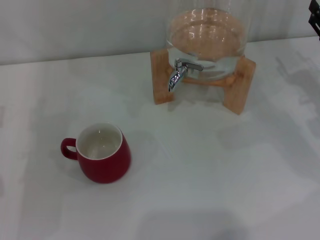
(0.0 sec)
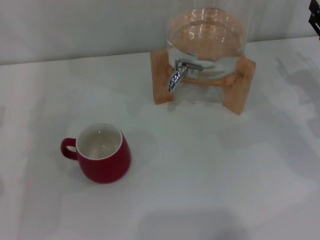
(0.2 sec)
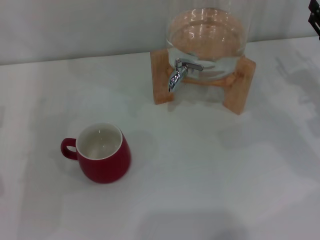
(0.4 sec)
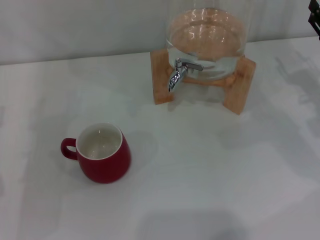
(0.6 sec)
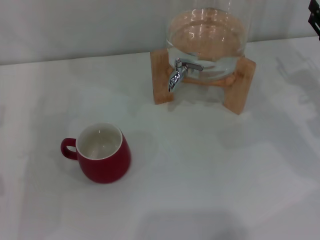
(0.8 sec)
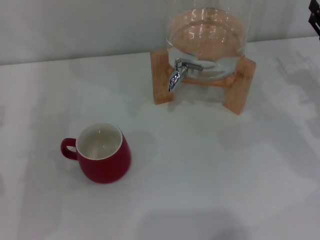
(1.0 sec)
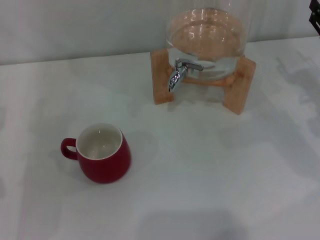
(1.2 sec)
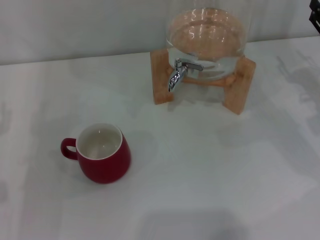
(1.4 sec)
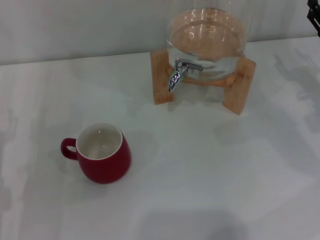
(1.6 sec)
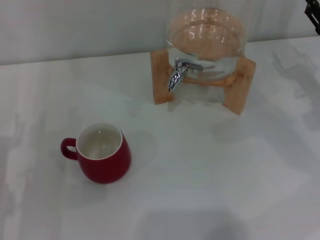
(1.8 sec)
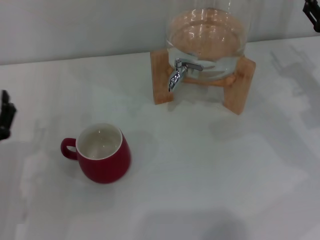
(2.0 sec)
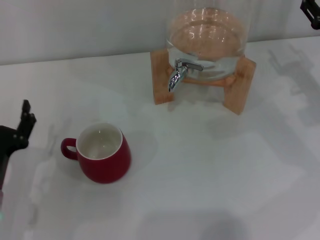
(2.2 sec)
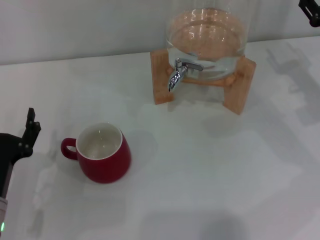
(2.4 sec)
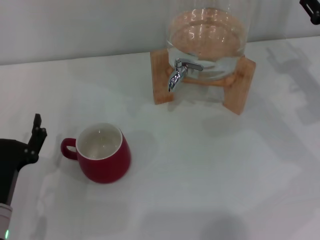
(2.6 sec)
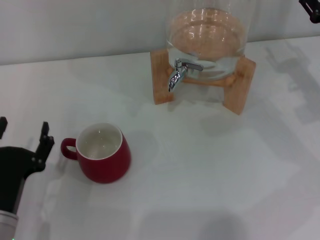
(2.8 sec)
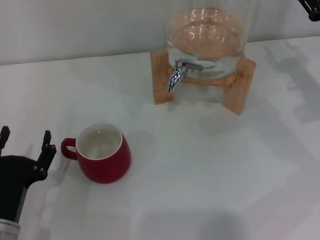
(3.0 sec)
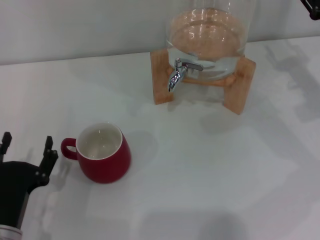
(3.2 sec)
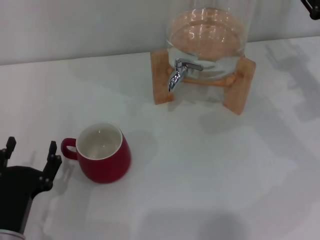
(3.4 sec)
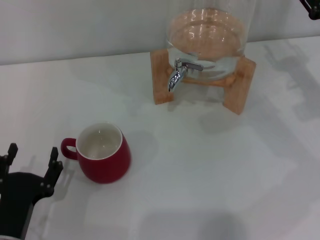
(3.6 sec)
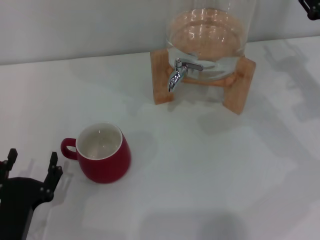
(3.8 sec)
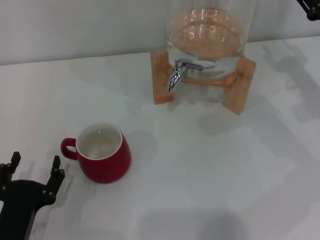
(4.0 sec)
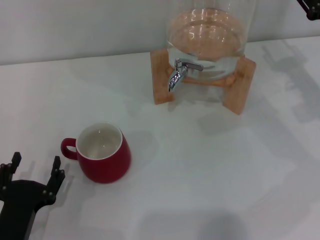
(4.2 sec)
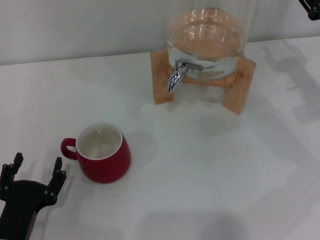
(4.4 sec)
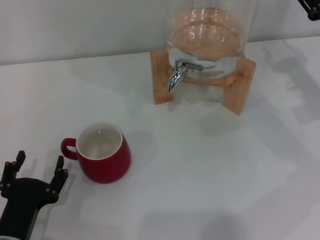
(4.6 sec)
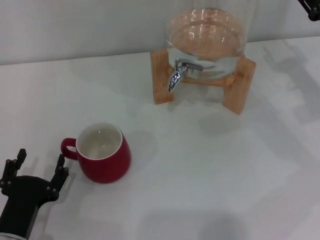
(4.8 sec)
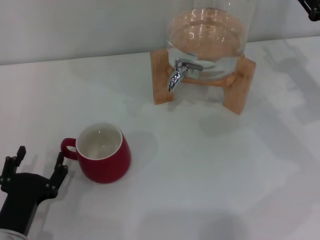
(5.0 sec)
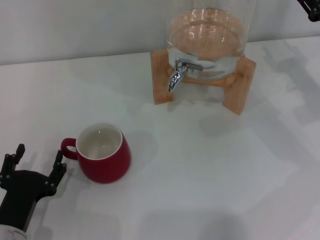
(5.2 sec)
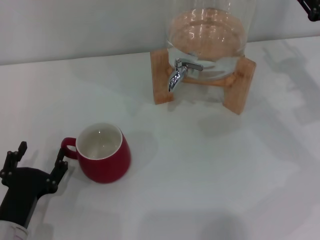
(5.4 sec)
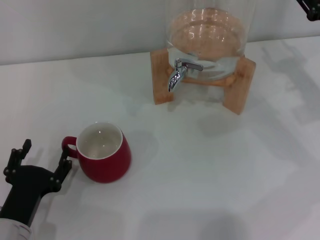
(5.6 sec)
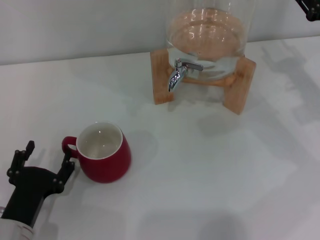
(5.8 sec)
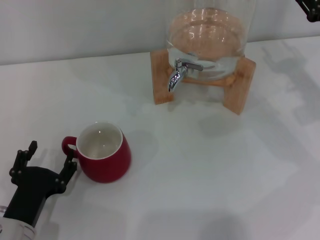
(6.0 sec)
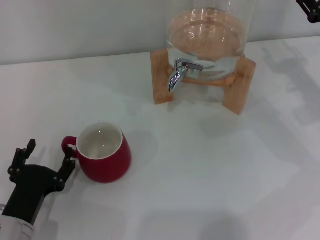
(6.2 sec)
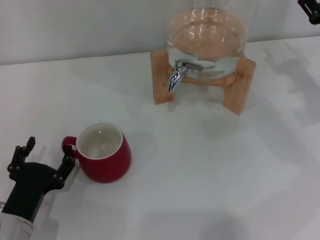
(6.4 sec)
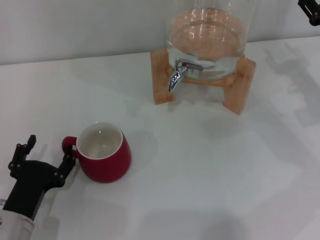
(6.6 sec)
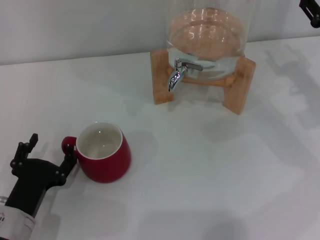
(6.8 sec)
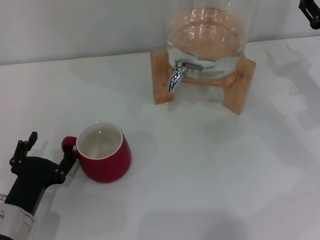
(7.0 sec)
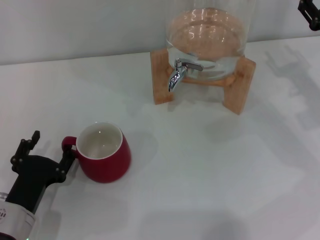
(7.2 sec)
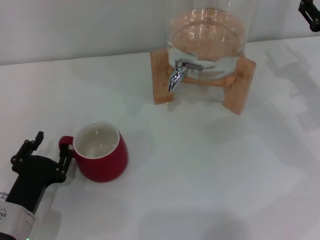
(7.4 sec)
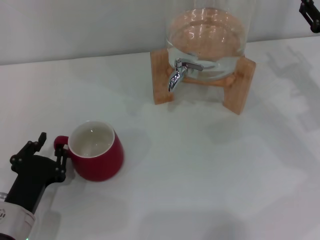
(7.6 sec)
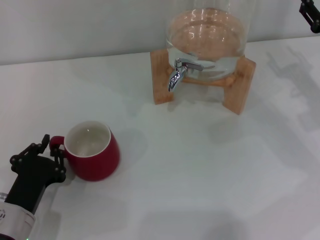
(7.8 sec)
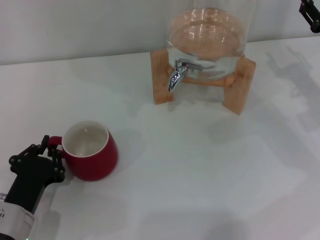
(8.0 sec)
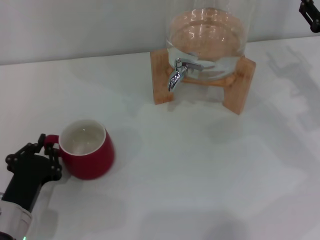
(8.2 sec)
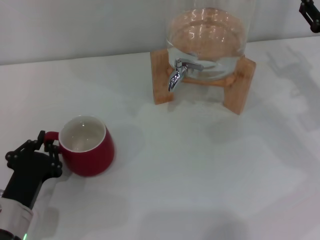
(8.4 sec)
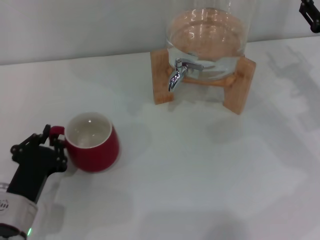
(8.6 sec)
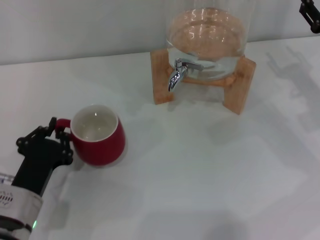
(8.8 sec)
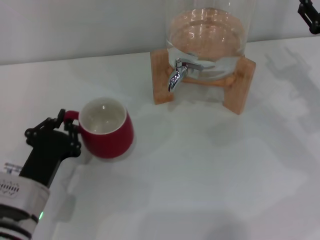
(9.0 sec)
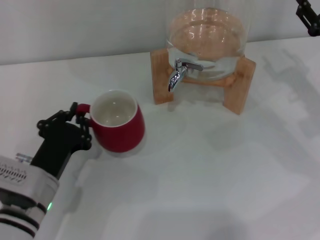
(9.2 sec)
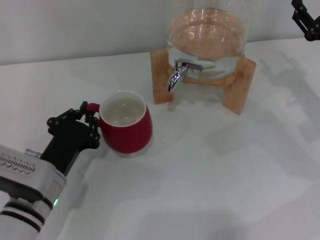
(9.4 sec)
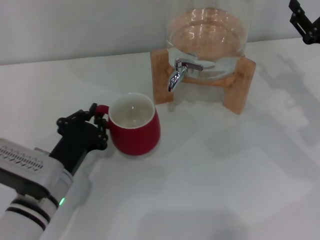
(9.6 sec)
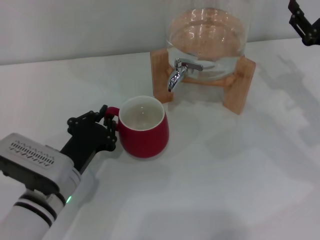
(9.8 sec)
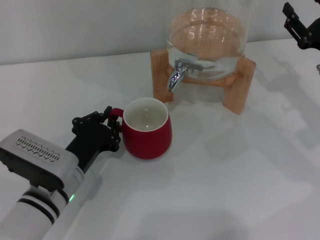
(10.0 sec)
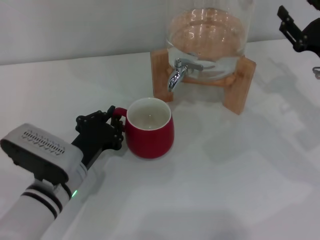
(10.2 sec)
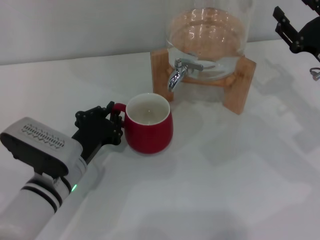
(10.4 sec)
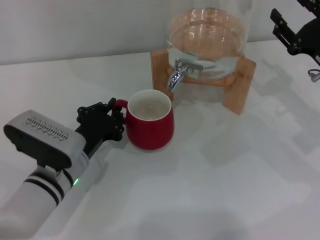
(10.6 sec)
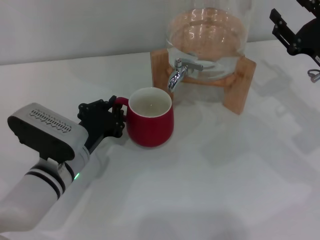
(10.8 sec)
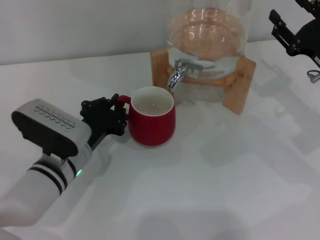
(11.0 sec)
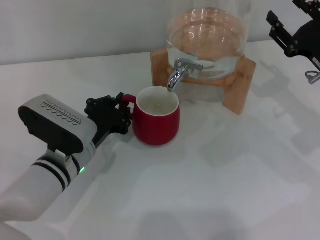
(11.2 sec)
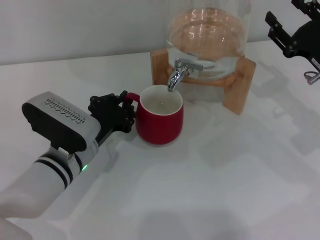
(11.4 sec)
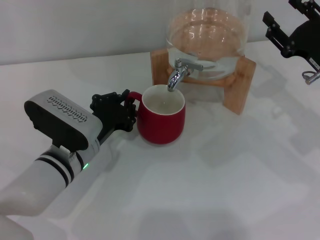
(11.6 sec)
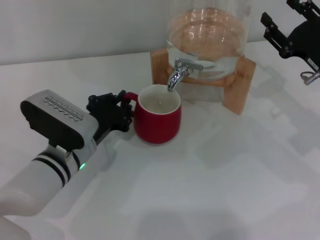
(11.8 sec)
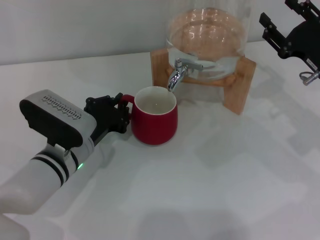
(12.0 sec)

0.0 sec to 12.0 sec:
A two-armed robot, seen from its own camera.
Task of the whole recording: the left gripper pick up the red cup and place it horizontally under the faucet, the right gripper turn on the faucet to fill the cup, and then turn off the faucet.
1.6 sec to 3.0 sec: The left gripper is displaced backward and to the right by some 10 cm.
3.0 sec to 6.0 sec: The grippers move only a little.
6.0 sec to 7.6 sec: The left gripper closes its fingers.
7.6 sec to 9.0 sec: The left gripper closes its fingers.
9.0 sec to 10.4 sec: The left gripper shifts by approximately 5 cm.
10.4 sec to 12.0 sec: There are only small adjustments of the grippers.

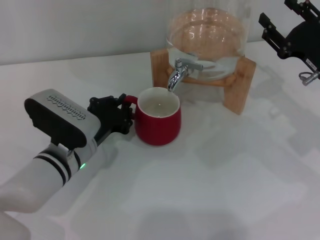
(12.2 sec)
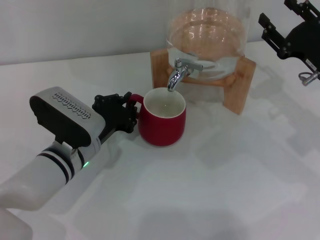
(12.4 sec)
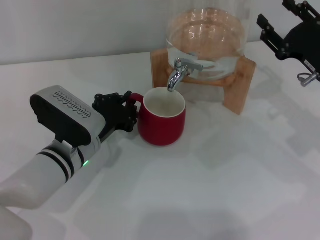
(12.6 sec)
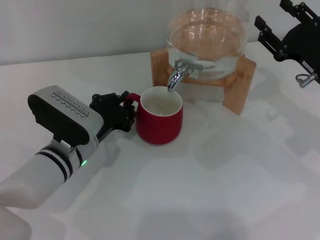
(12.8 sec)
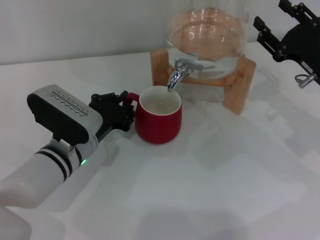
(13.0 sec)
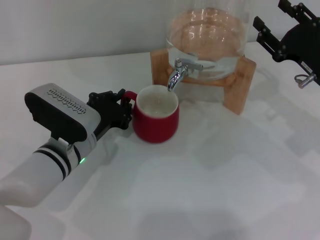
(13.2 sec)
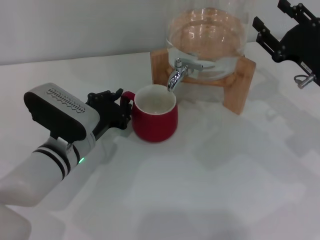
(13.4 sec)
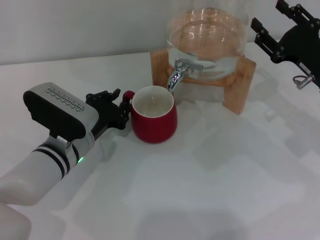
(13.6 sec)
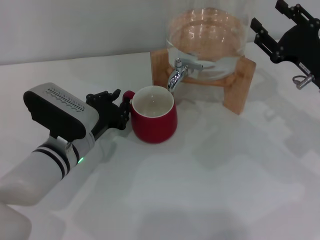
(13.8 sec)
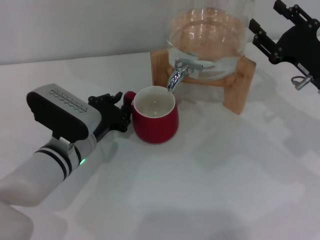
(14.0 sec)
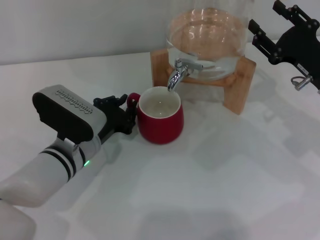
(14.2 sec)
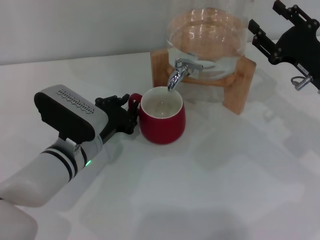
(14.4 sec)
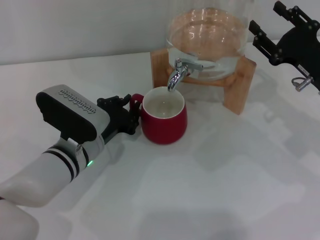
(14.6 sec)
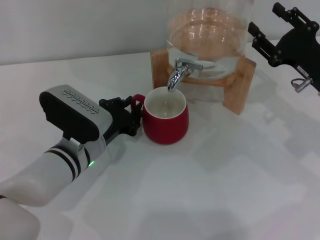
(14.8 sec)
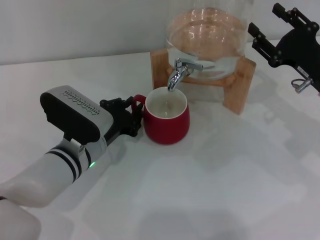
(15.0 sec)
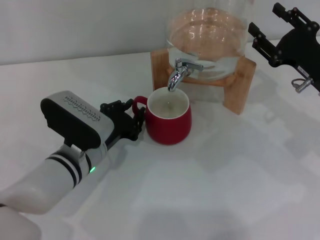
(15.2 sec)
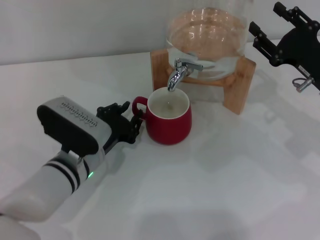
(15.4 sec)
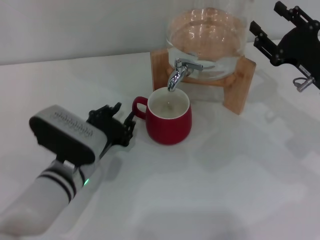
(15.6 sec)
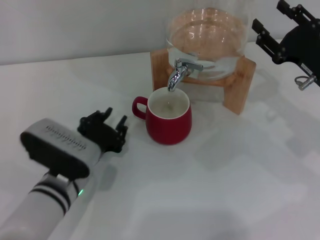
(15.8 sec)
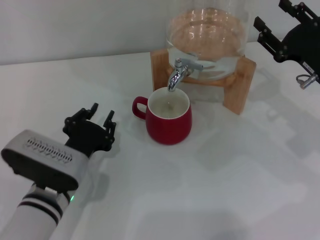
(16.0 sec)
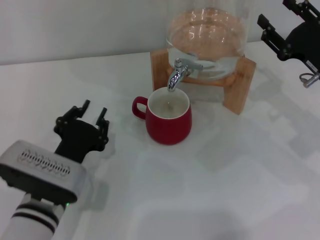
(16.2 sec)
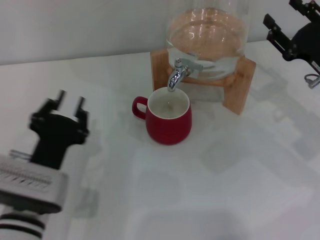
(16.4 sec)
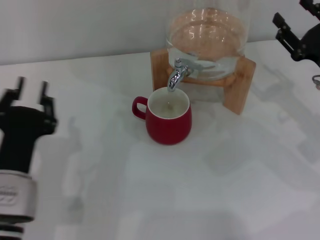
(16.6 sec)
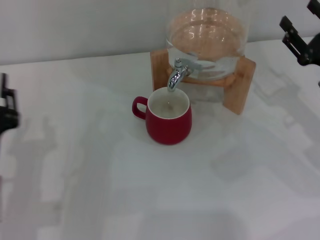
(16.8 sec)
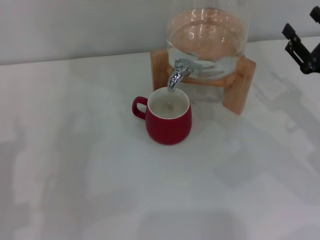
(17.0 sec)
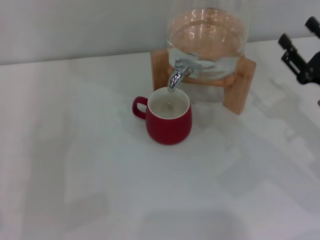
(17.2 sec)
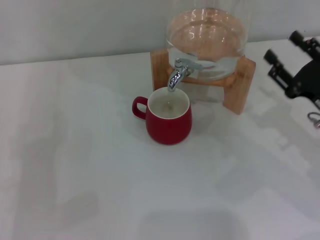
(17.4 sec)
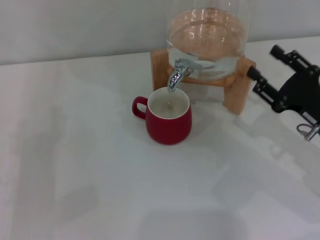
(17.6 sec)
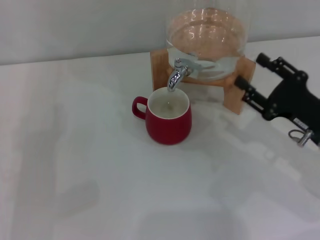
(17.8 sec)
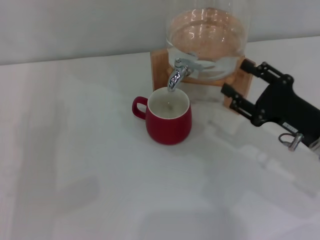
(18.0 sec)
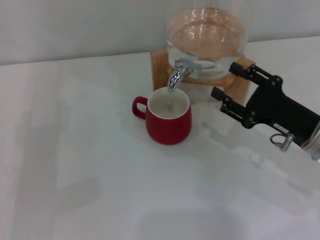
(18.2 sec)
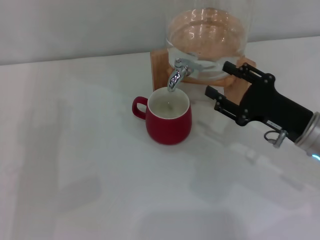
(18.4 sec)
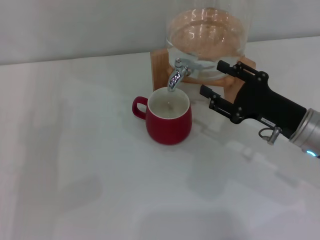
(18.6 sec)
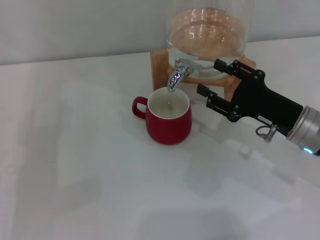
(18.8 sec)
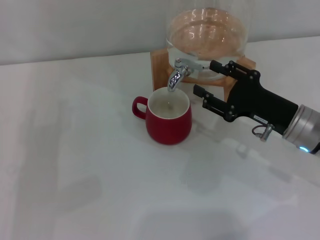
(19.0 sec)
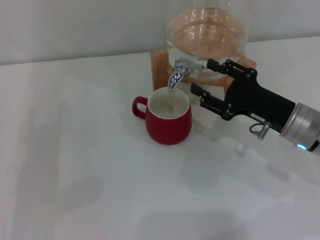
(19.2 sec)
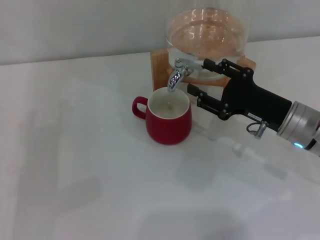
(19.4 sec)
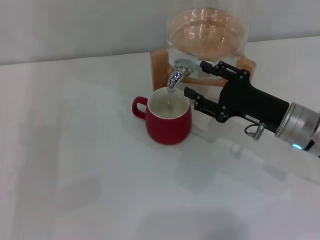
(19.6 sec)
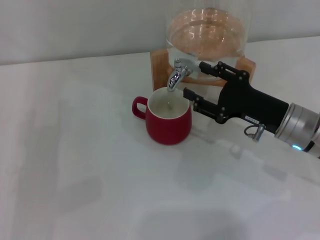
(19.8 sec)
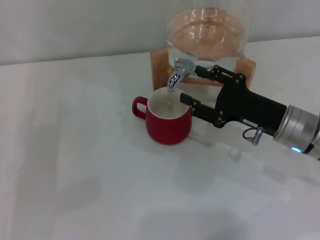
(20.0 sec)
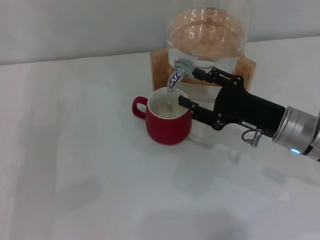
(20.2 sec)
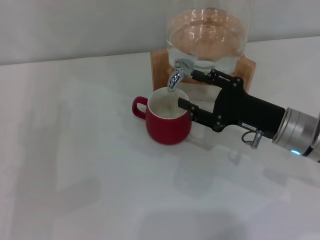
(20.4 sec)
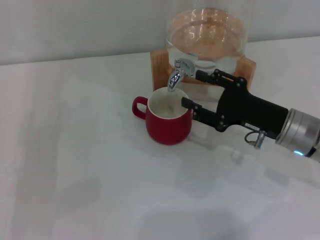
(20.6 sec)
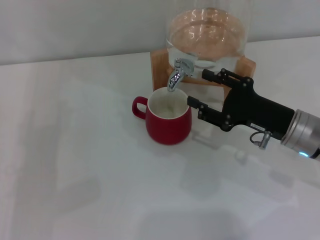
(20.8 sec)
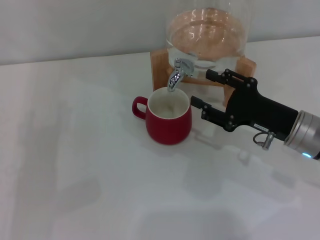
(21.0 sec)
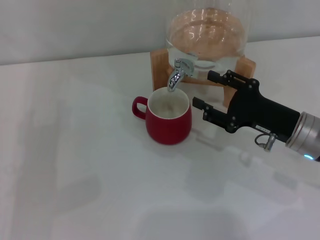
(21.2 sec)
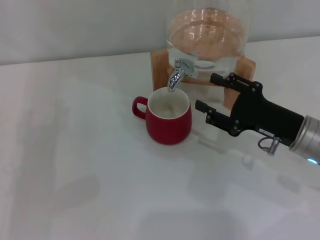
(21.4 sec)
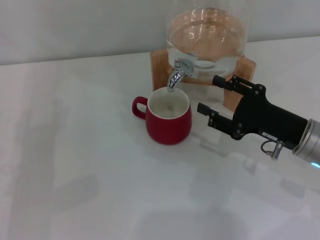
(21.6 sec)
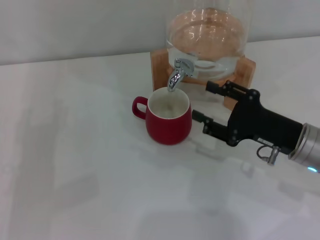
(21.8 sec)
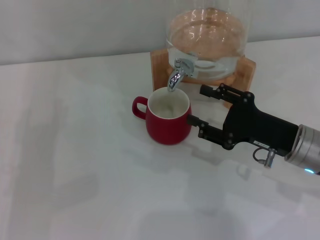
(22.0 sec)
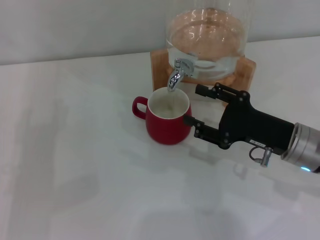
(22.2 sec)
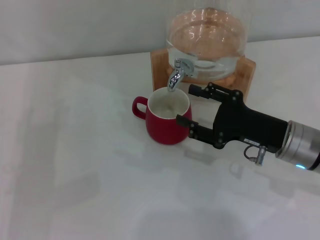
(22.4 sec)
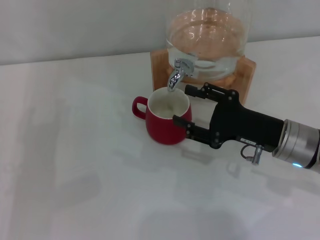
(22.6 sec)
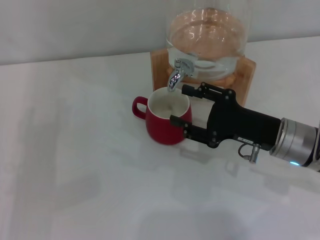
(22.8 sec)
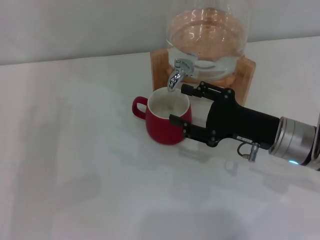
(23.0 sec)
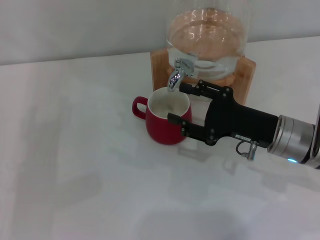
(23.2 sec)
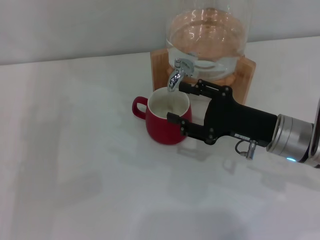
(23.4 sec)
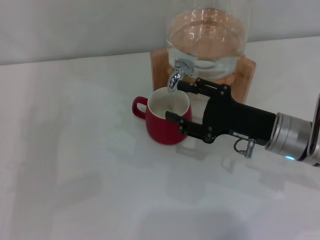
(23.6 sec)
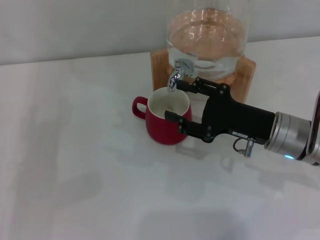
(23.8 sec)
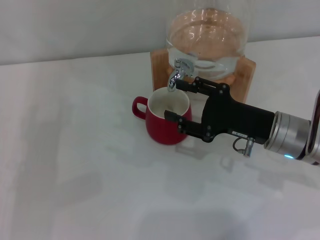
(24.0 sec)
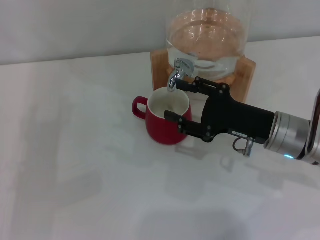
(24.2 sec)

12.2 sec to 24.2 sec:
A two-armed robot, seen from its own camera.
Task of the whole recording: the left gripper pick up the red cup and place it horizontally under the faucet, the right gripper turn on the faucet to fill the cup, and then turn off the faucet.
Step, 12.2 sec to 15.8 sec: Move the cup beneath the water dispenser nozzle with the left gripper.
Step, 16.0 sec to 21.2 sec: Open the dispenser valve and fill the cup with water with the right gripper.
12.2 sec to 13.8 sec: Both grippers stay about where they are.
13.8 sec to 15.2 sec: There are only small adjustments of the grippers.
15.2 sec to 16.6 sec: The left gripper shifts roughly 10 cm backward and to the left.
16.6 sec to 18.2 sec: The right gripper travels to the left by roughly 5 cm. The left gripper goes approximately 10 cm to the left, and opens its fingers.
18.2 sec to 24.2 sec: The grippers stay close to where they were, moving slightly.
